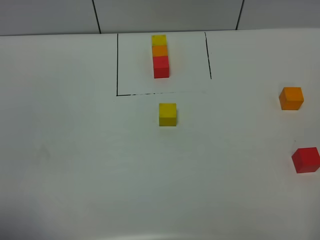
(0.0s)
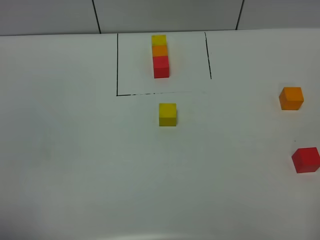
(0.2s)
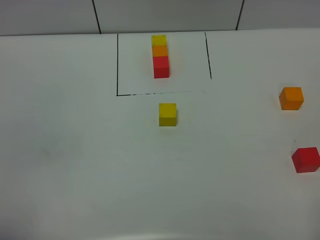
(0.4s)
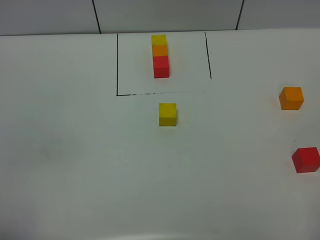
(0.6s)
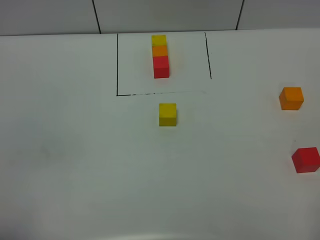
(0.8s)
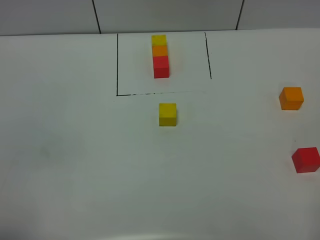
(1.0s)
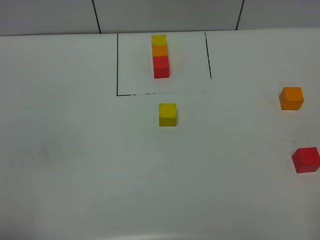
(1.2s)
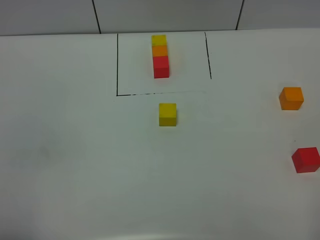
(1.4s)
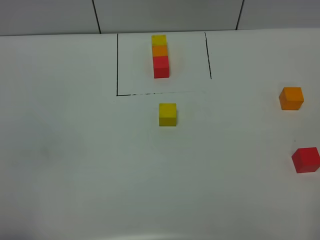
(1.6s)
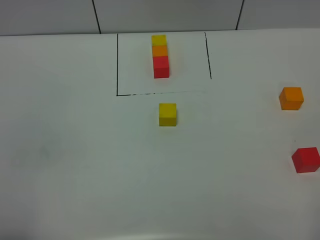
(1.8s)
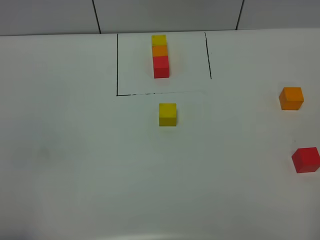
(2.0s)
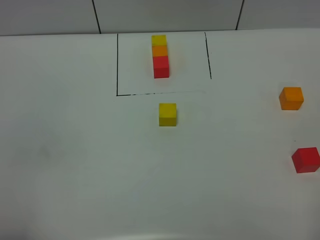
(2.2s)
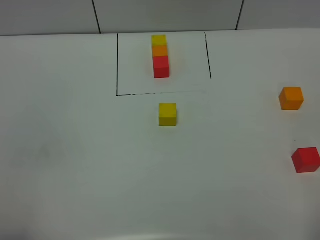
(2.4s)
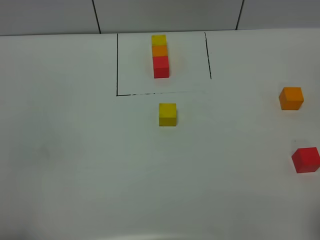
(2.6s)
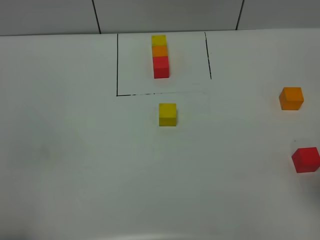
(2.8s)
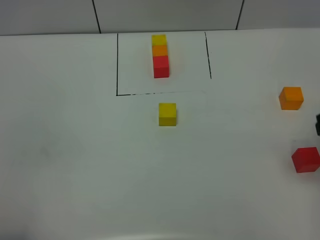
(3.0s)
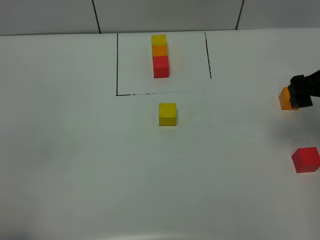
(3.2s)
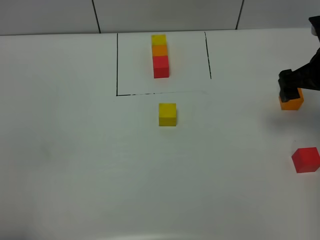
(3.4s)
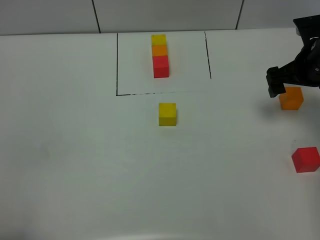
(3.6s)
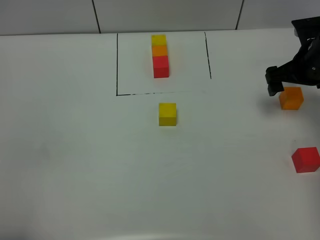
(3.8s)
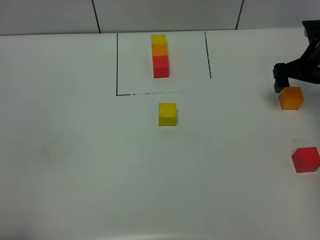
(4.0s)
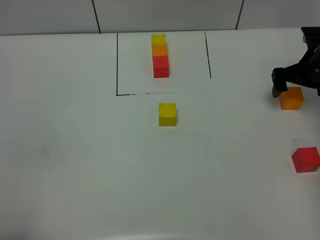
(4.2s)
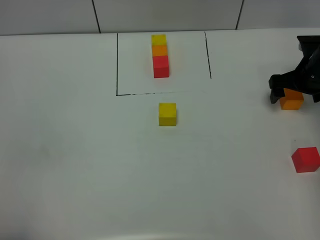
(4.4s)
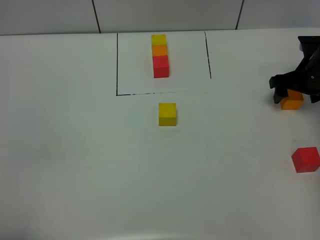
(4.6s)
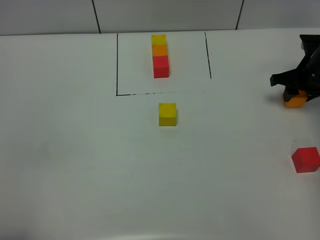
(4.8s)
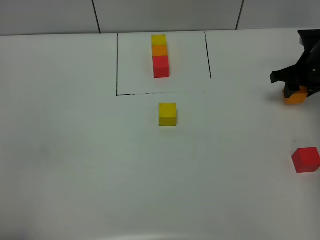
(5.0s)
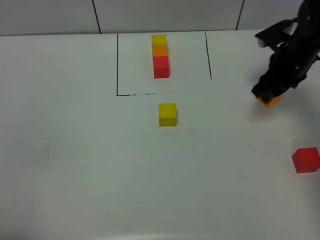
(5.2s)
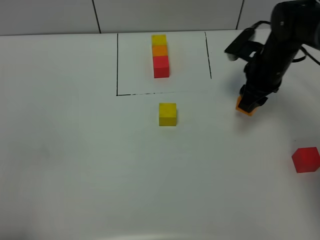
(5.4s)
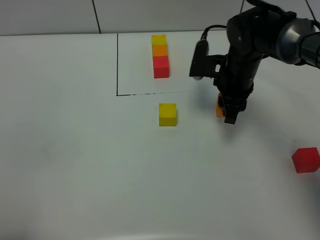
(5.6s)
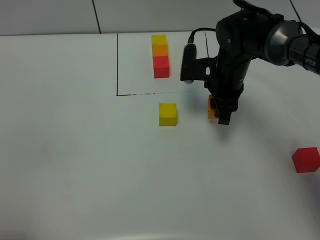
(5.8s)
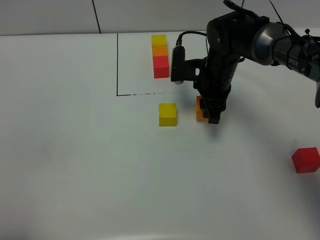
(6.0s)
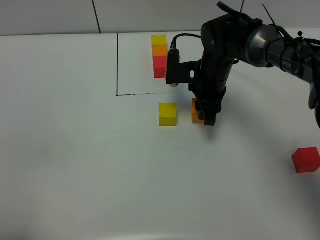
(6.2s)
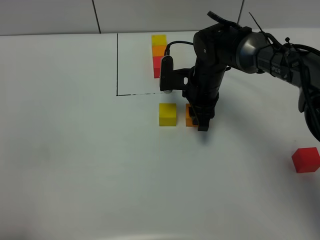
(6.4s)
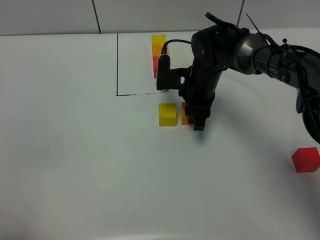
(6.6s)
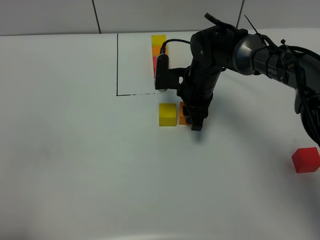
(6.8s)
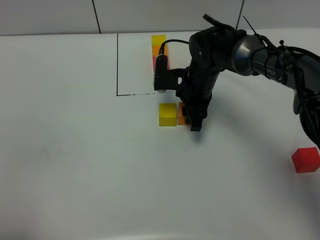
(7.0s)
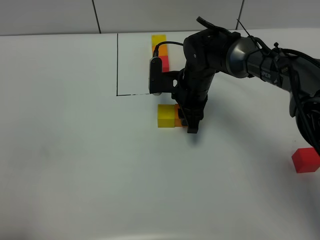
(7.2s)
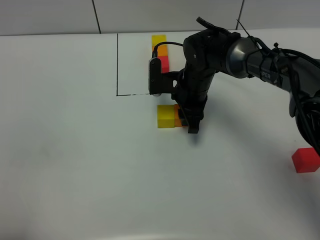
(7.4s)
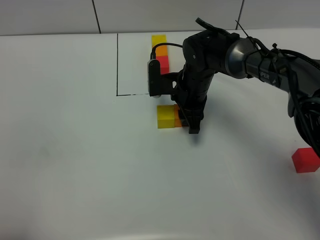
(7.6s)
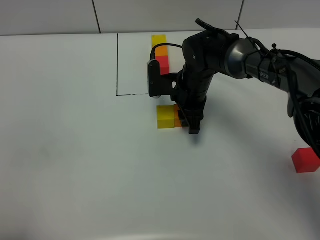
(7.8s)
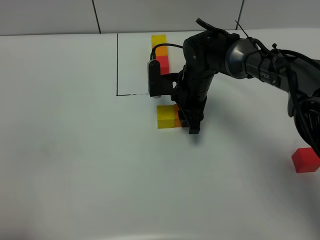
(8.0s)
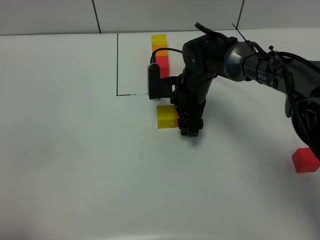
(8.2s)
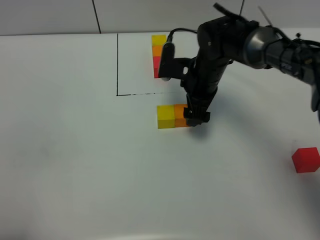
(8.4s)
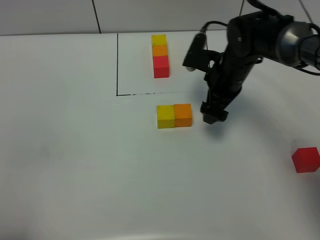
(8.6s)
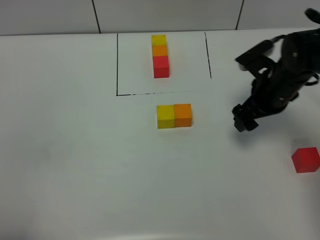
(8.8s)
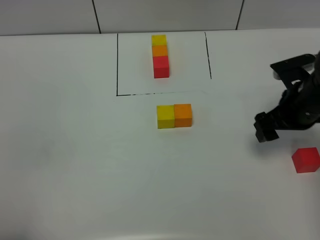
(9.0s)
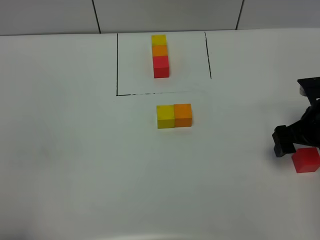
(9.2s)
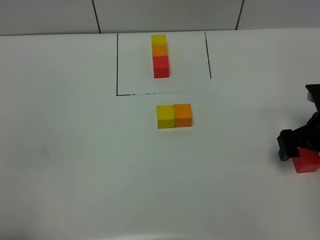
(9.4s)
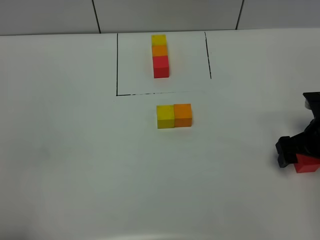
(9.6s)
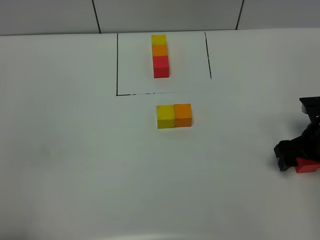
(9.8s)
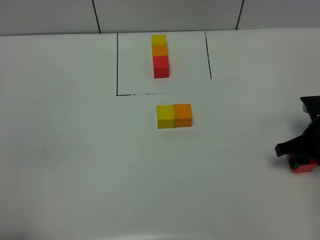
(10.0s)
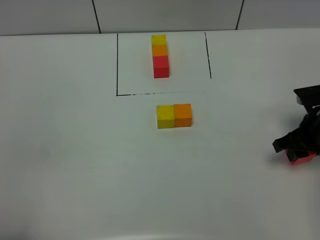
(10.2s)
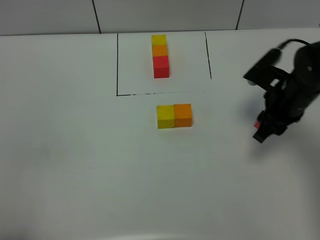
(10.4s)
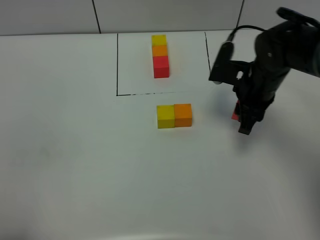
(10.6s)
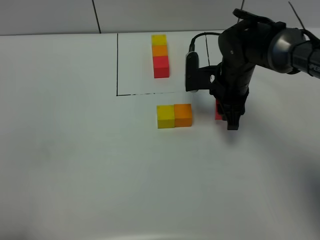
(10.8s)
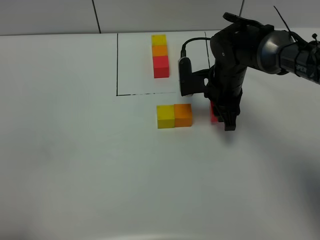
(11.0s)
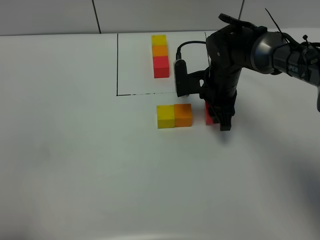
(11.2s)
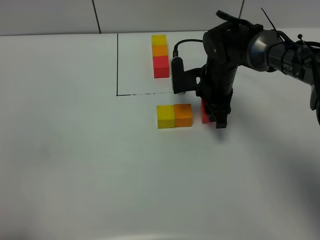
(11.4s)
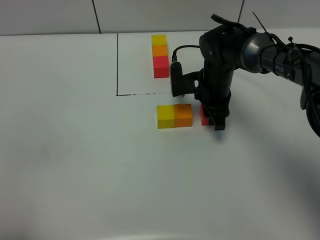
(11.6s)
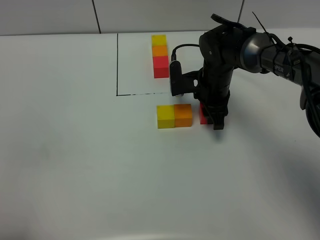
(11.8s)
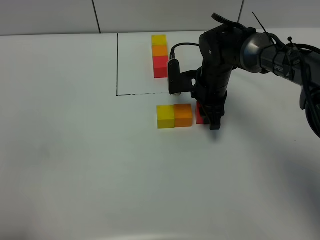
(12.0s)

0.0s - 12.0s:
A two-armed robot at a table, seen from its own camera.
Task of the whole recording: According to the building block template in front, assemble the scattered blocks together.
Step, 0.0s - 8.2s: Put the orange build block on the right of the yellow build block.
3.0s - 4.4s: The right gripper goes approximately 25 cm forward and downward.
4.4s - 6.0s: The right gripper travels to the left by approximately 20 cm, and closes its fingers.
6.0s - 7.6s: The right gripper ends up approximately 5 cm from where it was.
7.6s - 9.0s: The right gripper is displaced to the right and backward by approximately 20 cm, and opens its fingers.
9.0s - 10.4s: The right gripper closes its fingers.
10.4s - 12.0s: The right gripper shifts about 15 cm to the left, forward and downward.

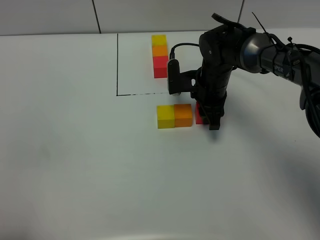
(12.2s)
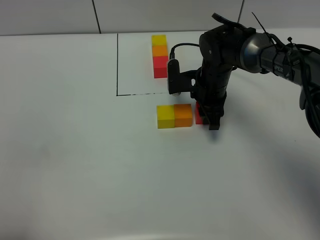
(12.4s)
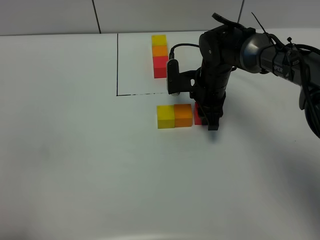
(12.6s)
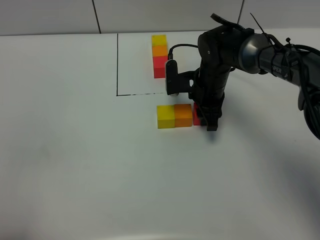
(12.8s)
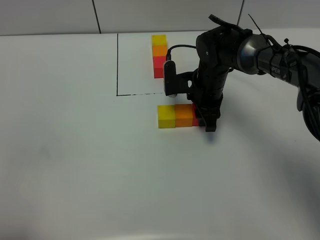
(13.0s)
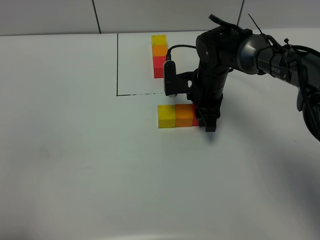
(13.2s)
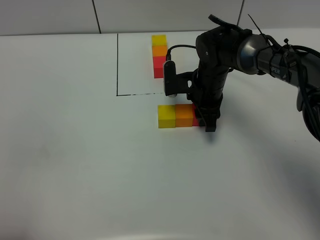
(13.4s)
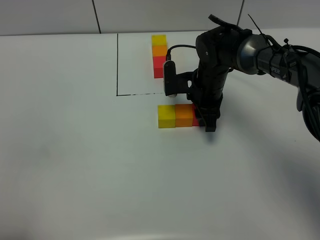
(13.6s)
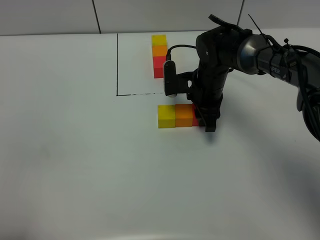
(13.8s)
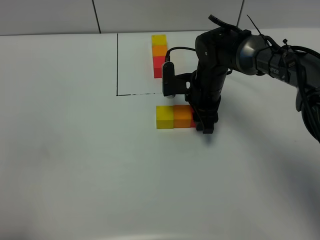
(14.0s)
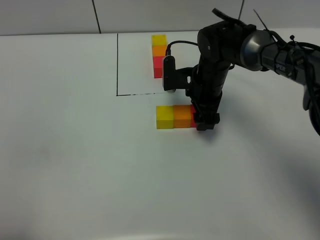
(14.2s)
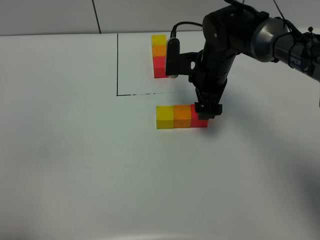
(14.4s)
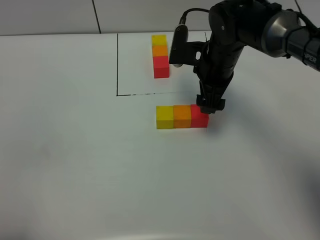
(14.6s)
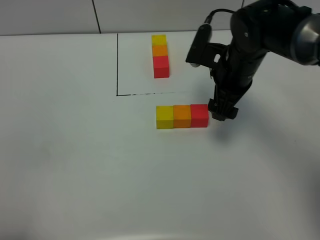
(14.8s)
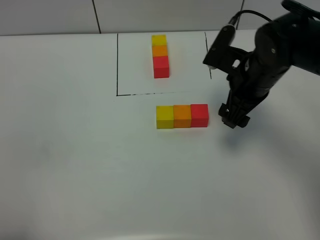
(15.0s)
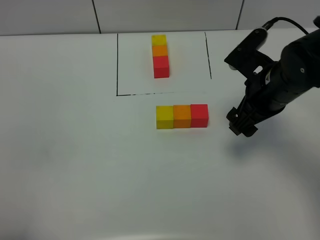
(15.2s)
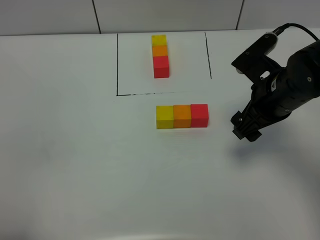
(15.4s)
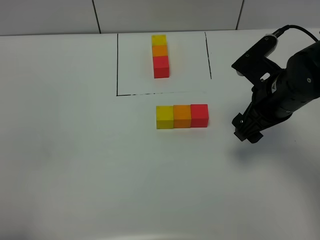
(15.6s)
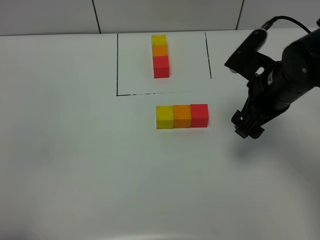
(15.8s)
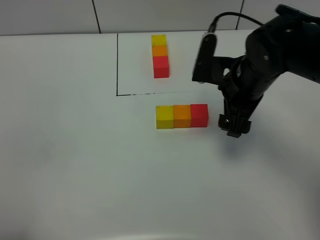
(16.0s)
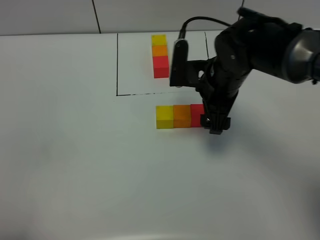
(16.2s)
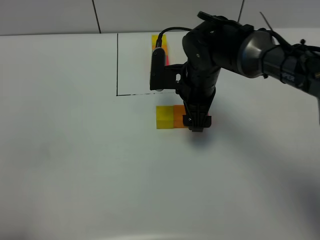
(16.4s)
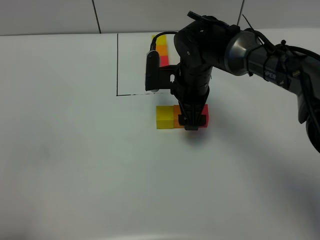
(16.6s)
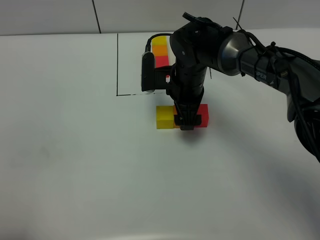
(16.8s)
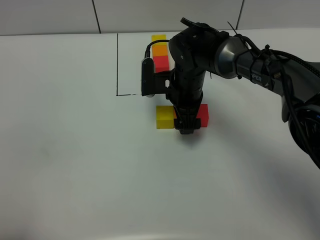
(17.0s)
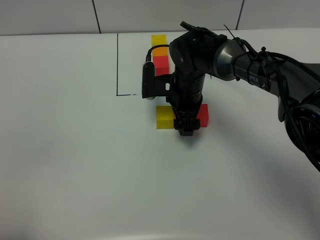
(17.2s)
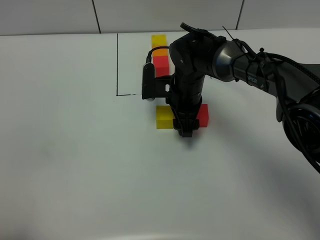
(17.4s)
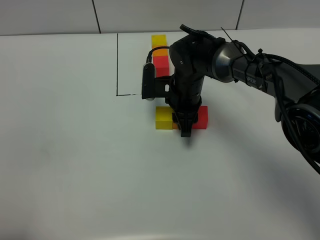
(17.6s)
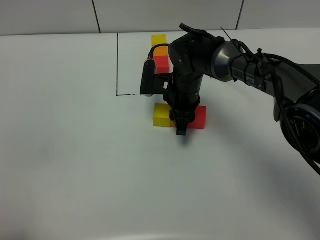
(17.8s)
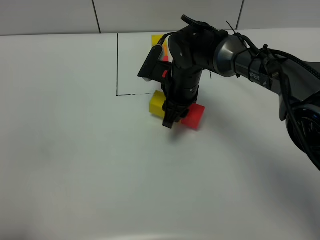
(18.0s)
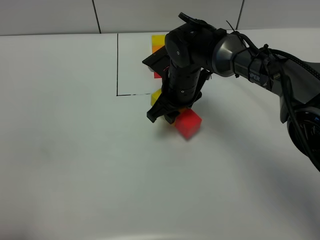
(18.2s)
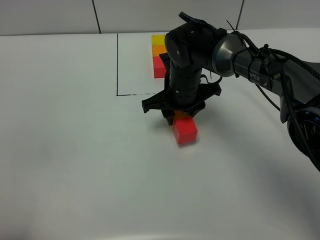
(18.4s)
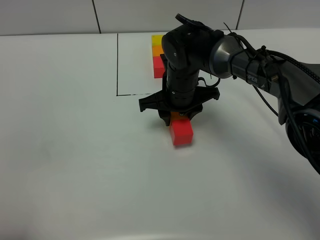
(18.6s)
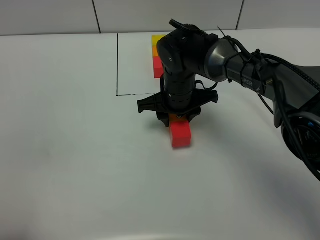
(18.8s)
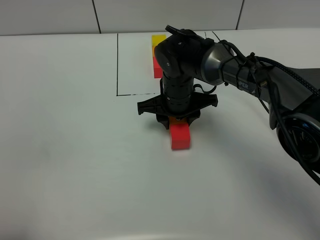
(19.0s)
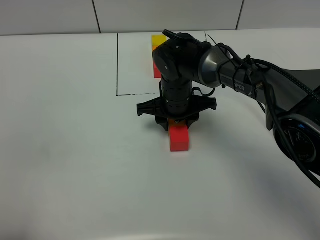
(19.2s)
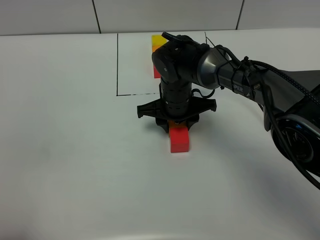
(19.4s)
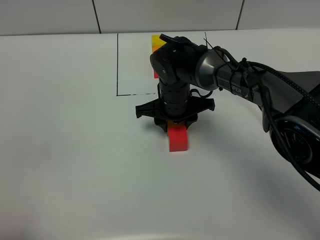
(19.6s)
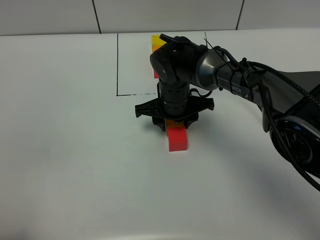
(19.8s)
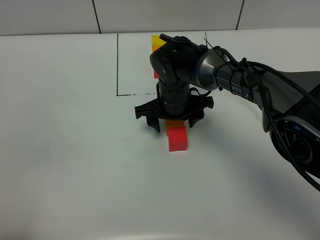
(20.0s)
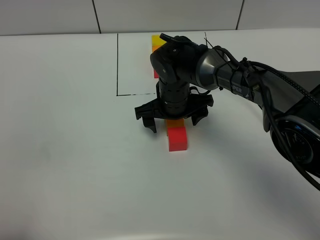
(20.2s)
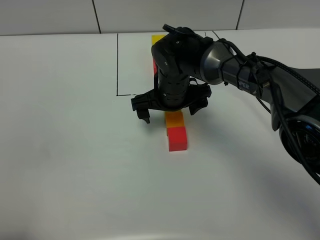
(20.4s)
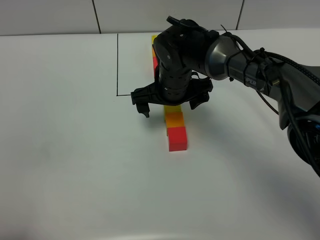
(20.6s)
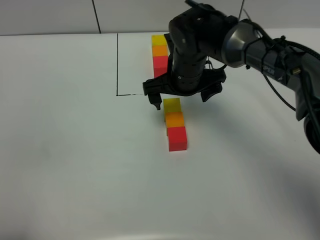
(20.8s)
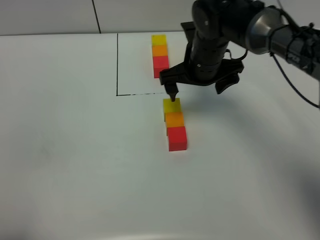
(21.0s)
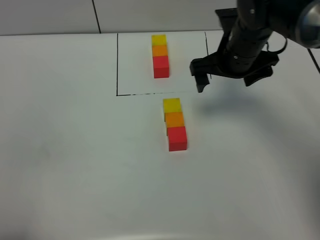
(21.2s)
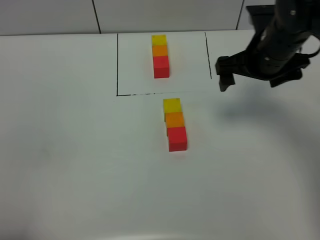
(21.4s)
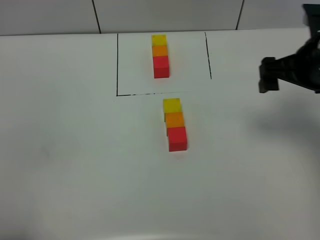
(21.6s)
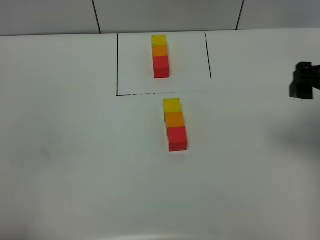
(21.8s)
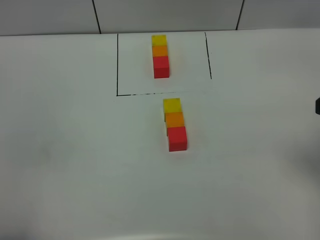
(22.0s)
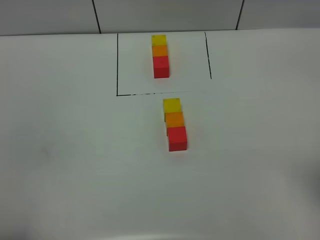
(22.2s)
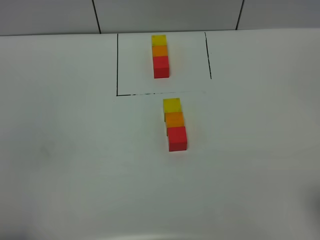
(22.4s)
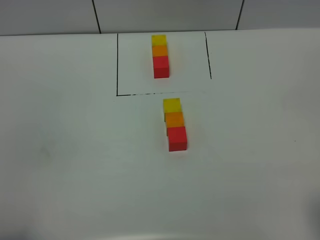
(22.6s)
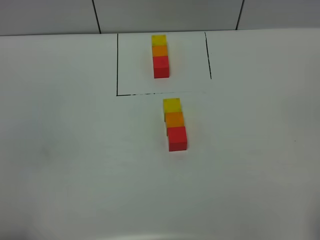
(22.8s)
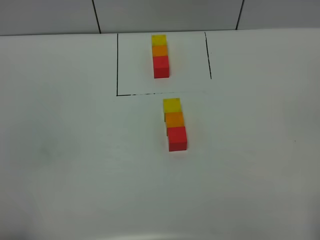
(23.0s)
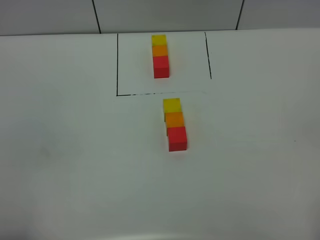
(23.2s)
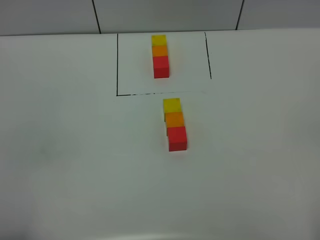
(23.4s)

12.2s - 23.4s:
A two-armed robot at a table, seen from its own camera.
Task of the whole recording: According to the building block template in front, assemble the scattered blocks together.
Step, 12.2s - 14.2s: Put the red build block on the right of the orange build block.
Step, 14.4s - 20.0s: move the build block to the center of the table.
12.2s - 13.8s: Both grippers stay put.
13.8s - 15.4s: The right gripper heads backward, upward and to the right, covering approximately 20 cm, and opens up.
15.4s - 17.0s: The right gripper travels to the left, forward and downward by approximately 20 cm.
17.0s - 18.6s: The right gripper closes.
18.6s - 20.2s: The right gripper opens up.
20.2s - 21.8s: The right gripper shifts about 35 cm to the right, upward and backward.
21.8s - 23.4s: The right gripper goes roughly 25 cm backward.
